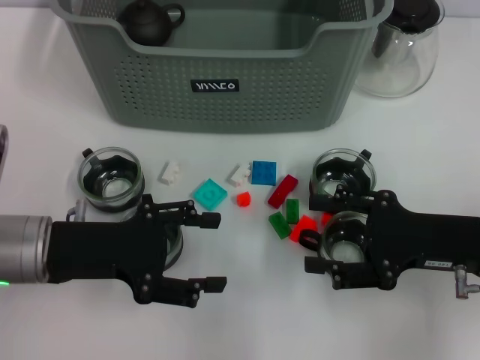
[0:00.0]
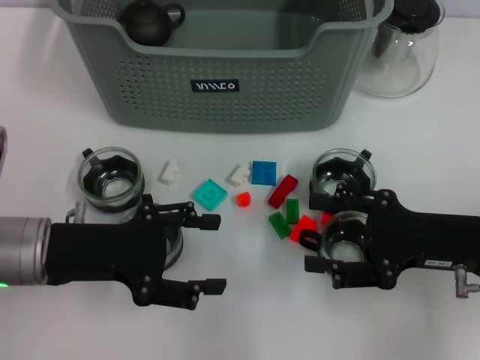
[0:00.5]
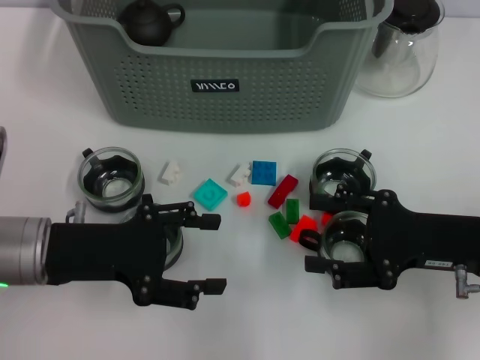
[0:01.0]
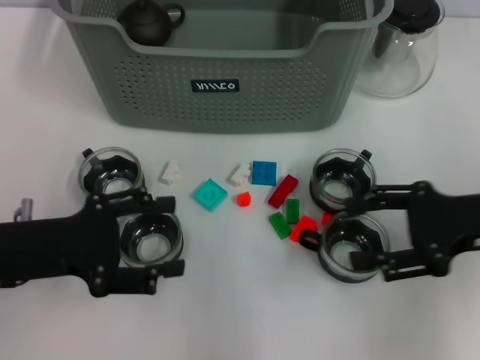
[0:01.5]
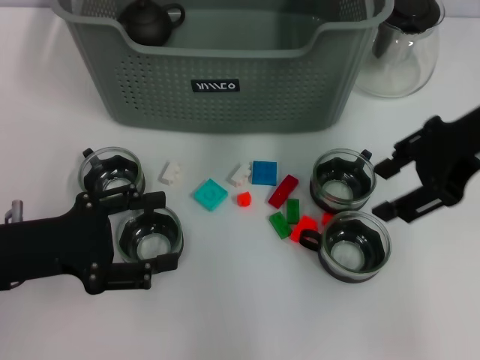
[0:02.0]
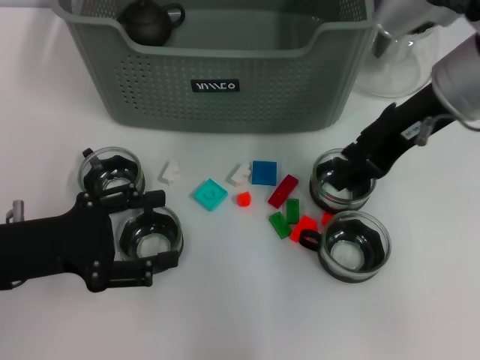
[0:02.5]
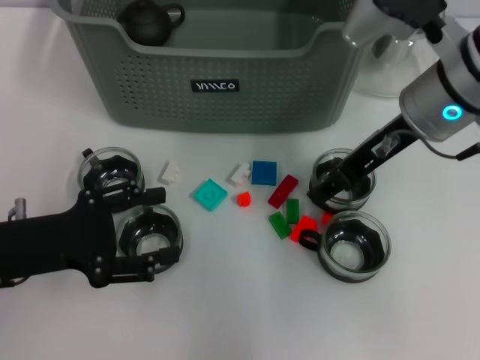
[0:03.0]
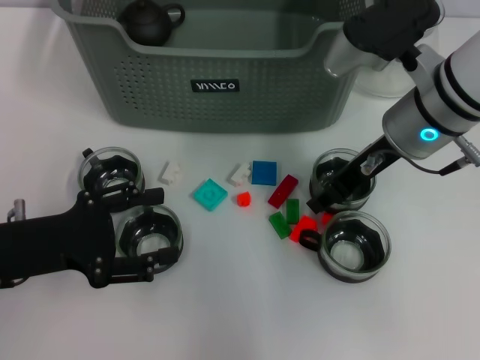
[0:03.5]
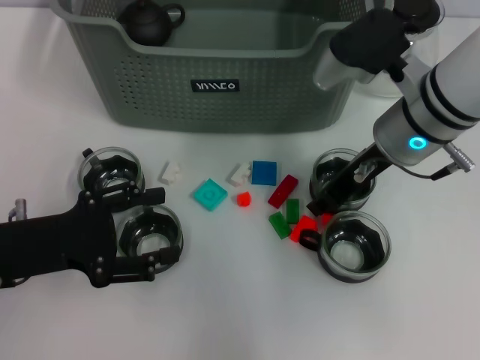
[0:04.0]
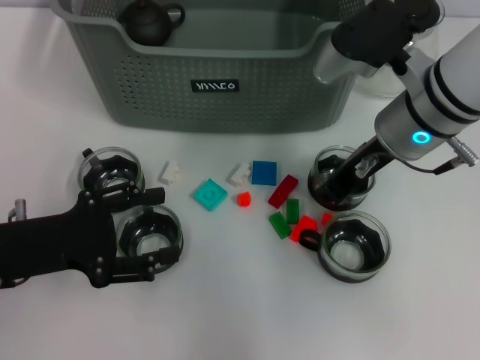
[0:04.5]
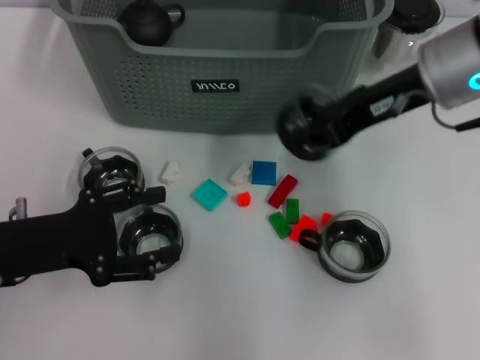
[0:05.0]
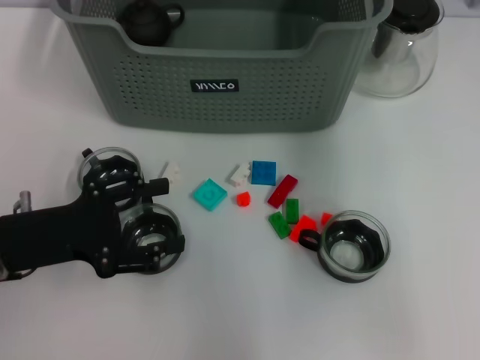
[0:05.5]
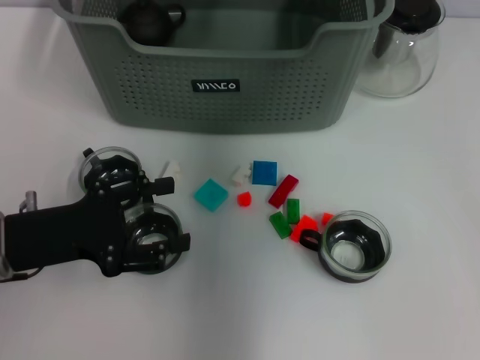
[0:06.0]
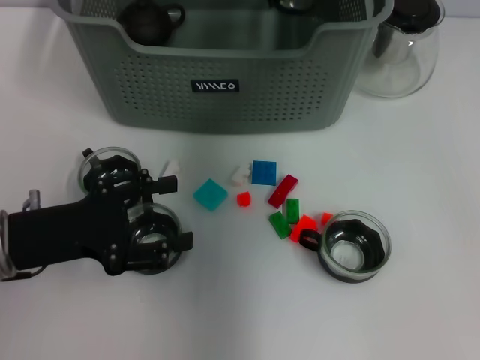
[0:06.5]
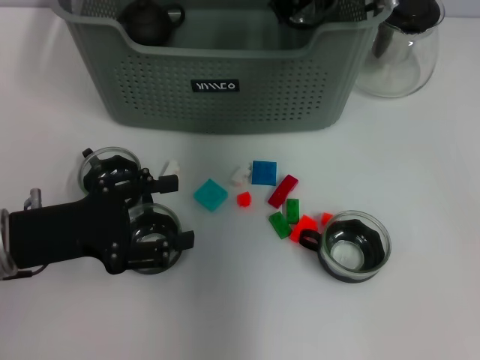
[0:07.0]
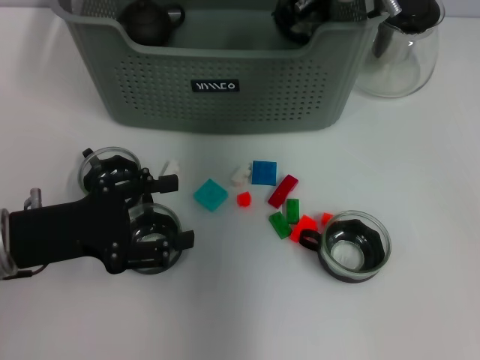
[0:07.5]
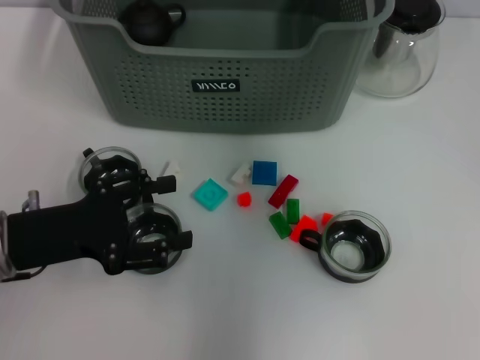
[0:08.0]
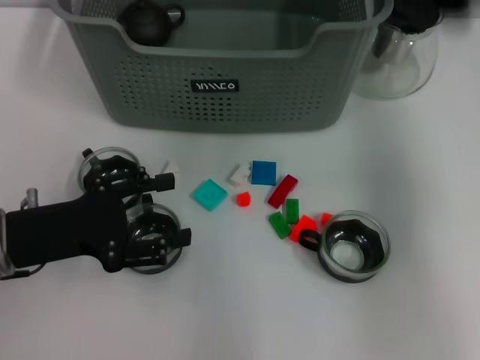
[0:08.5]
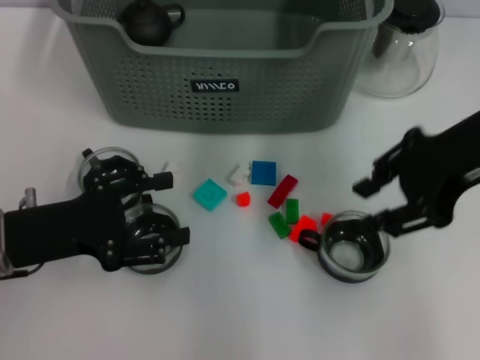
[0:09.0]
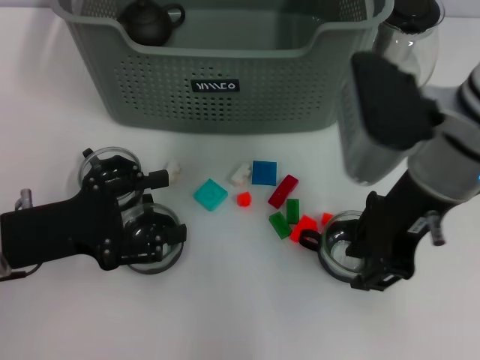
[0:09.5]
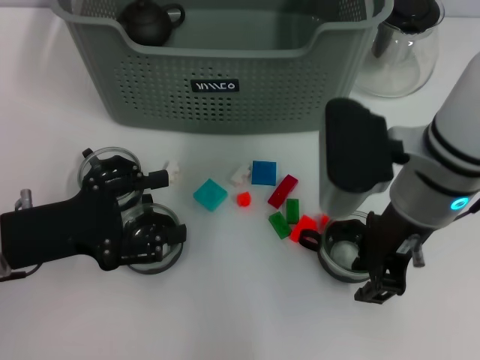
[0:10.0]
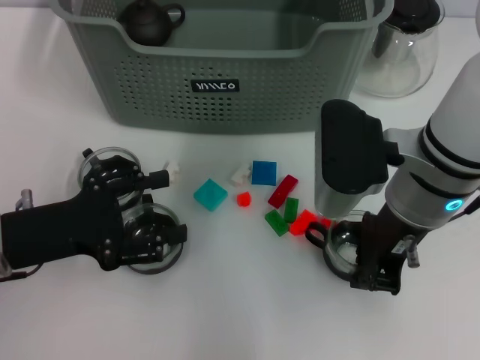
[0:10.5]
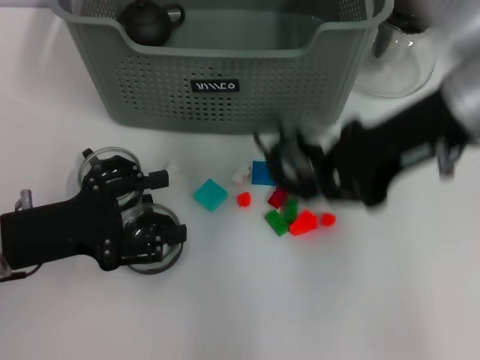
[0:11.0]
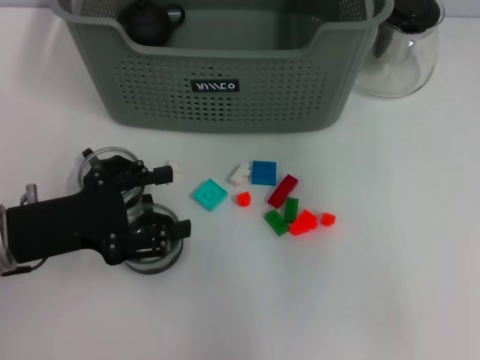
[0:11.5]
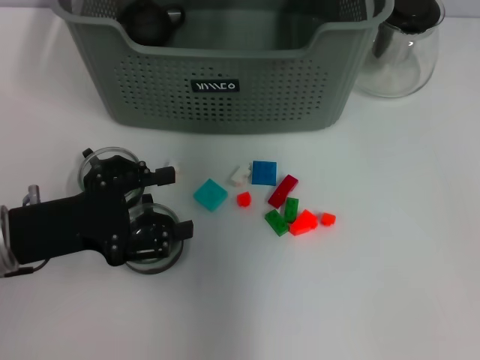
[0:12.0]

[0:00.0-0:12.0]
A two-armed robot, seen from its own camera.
Task of the whole recording: pick up the teacup on the table and place it into the storage bin, pick up the block on the table and place it into the storage bin.
Step, 0:00.0 to 0:04.0: Grasp the cup with right gripper.
Step, 0:04.5 to 0:07.5: Place the cup in the storage box with right gripper.
Step, 0:08.0 to 0:10.0: Grasp the cup with right gripper.
0:00.0 to 0:02.0: The right gripper shifts approximately 20 cm upward and forward.
0:02.0 to 0:04.0: The right gripper is displaced downward and to the left by about 10 cm, and closes.
0:04.0 to 0:06.0: The right gripper heads upward, forward and to the left, covering about 20 cm, and closes its fingers.
0:06.0 to 0:08.0: The right gripper goes downward and returns, roughly 5 cm each way, and opens up.
0:08.0 to 0:10.0: The right gripper moves backward and downward, approximately 20 cm.
0:10.0 to 0:12.0: The right gripper travels forward, upward and to the left by roughly 20 cm, and closes its fingers.

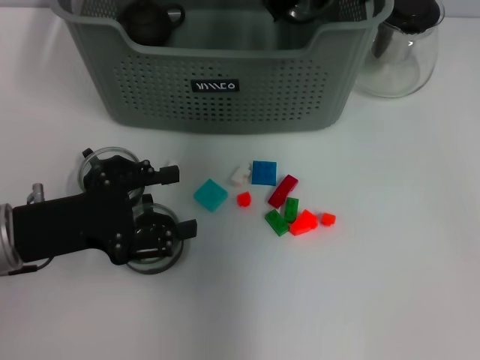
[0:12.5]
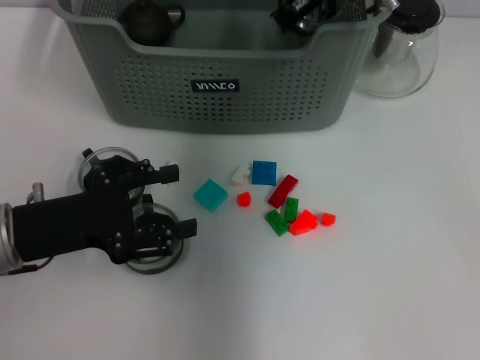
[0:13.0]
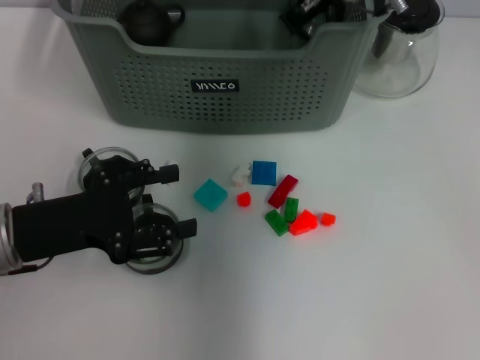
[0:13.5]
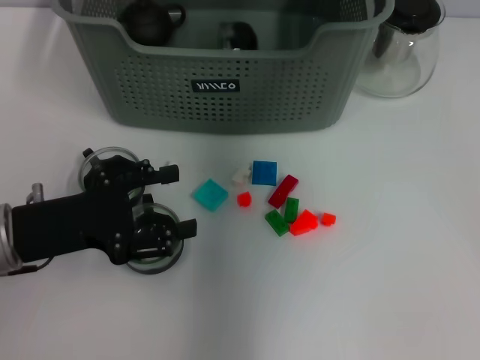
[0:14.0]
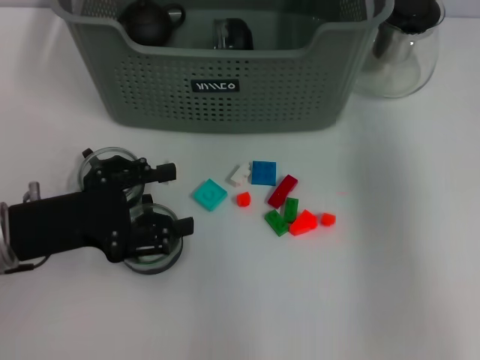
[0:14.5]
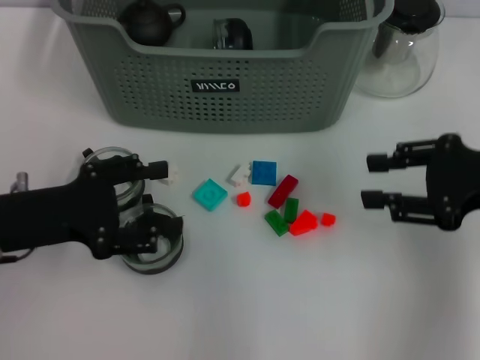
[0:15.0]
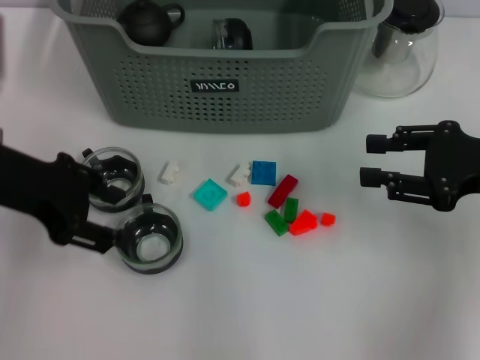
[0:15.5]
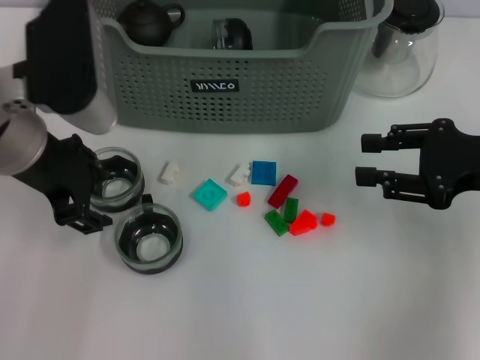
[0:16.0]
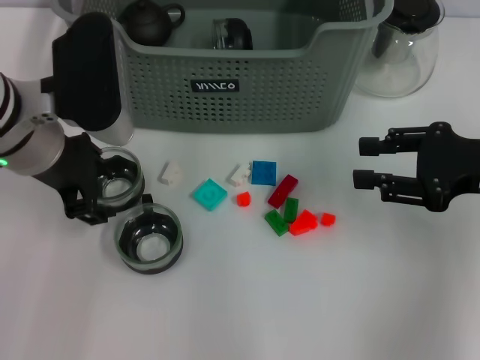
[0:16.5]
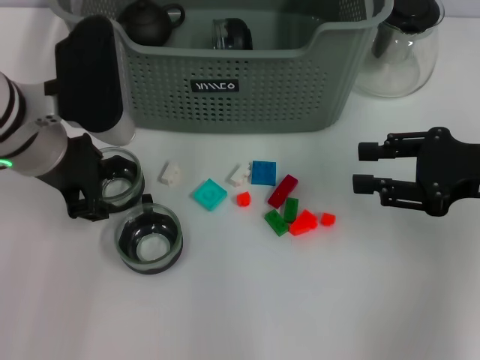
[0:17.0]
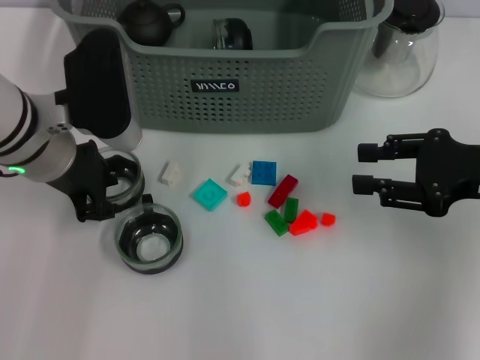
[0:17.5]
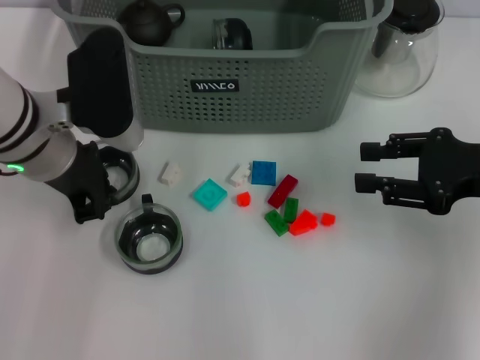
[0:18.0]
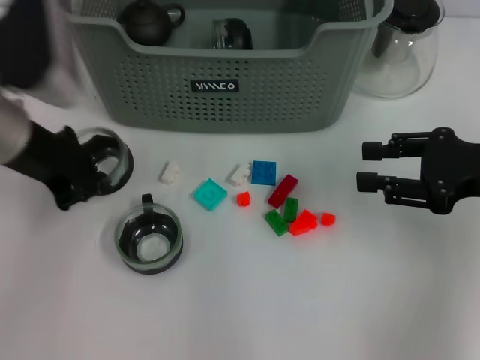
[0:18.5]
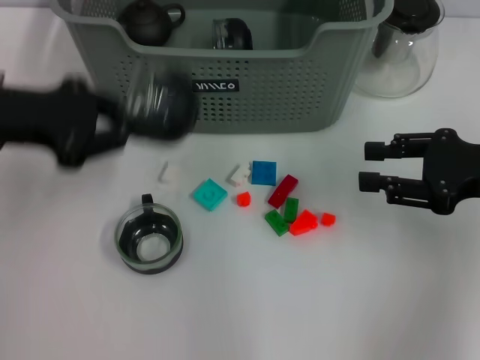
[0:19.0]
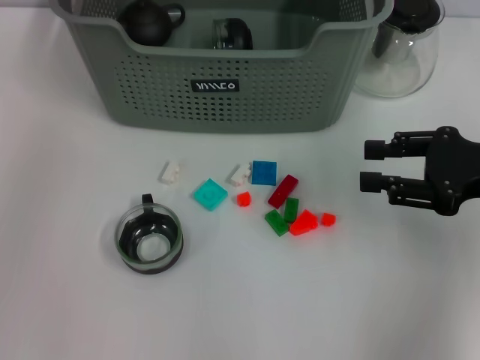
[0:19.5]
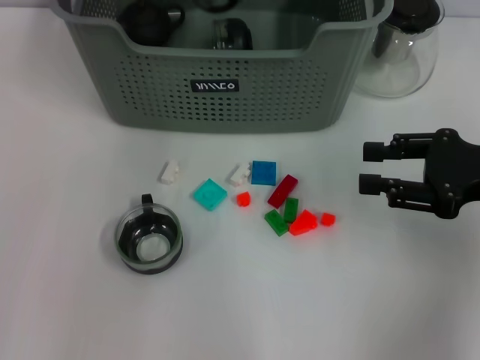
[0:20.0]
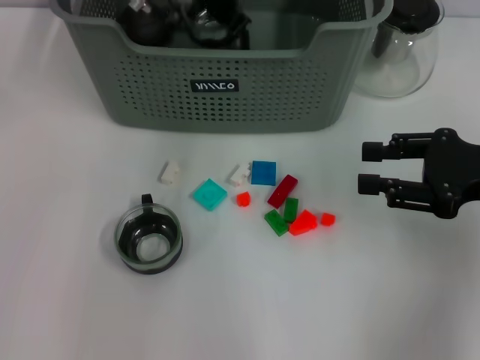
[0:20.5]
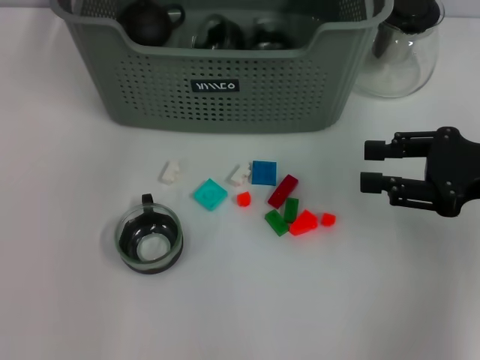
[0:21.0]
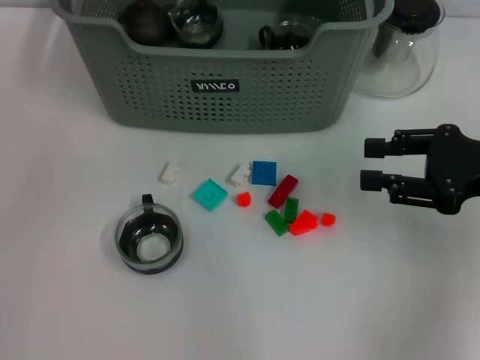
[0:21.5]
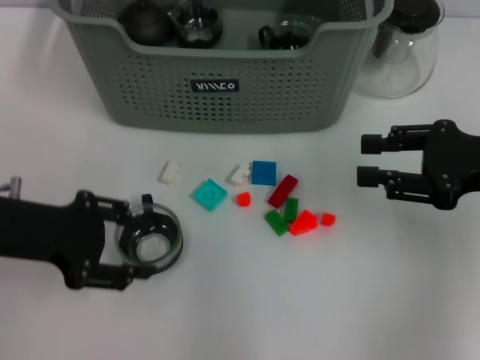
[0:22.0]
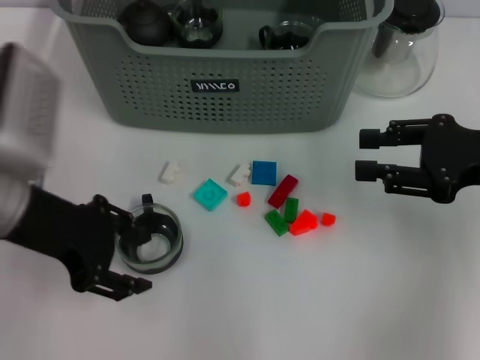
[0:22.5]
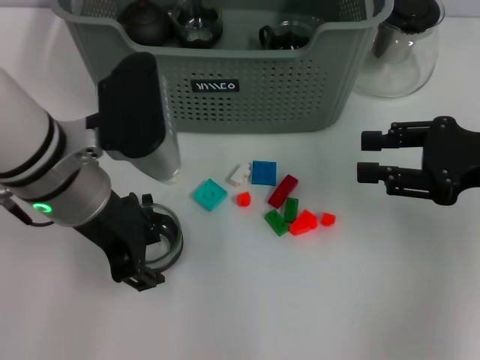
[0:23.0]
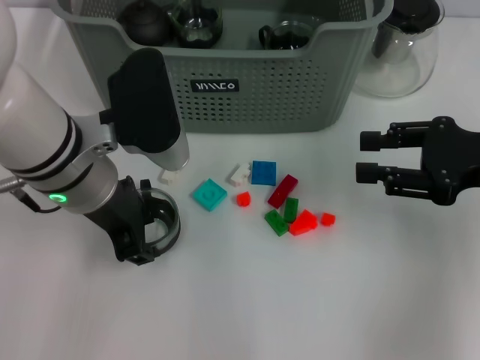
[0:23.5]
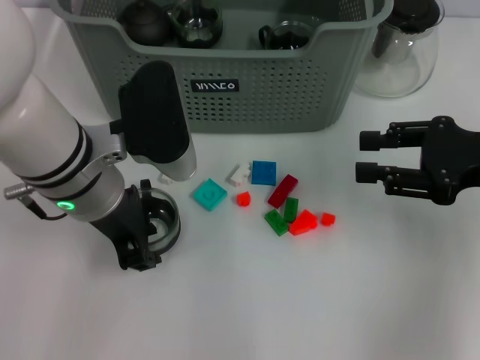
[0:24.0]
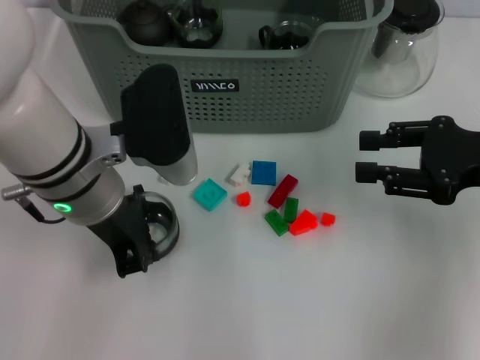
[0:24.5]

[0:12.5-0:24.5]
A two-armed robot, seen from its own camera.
Task of the whole recording: pick up the teacup on the table and place it into the storage bin, pick up the block on the table and place it into the storage bin.
Step, 0:14.0 to 0:17.5: Grasp the cup with left gripper.
Step, 0:18.5 to 0:20.5: Place the cup in the storage box with left gripper.
Step, 0:21.0 to 0:24.0: Grasp the cup with left gripper.
0:12.5 to 0:14.5: The right gripper shifts roughly 20 cm to the right and backward, and opens up.
0:14.5 to 0:16.5: The left gripper travels upward, forward and to the right by approximately 15 cm. Meanwhile the right gripper moves downward, to the right and backward, some 15 cm.
0:16.5 to 0:18.5: The left gripper closes up.
0:18.5 to 0:20.5: The left gripper is displaced to the right and forward by about 20 cm.
0:20.5 to 0:22.5: The left gripper heads backward and to the left, covering about 25 cm, and opens up.
0:22.5 to 0:24.5: The left gripper heads to the right, covering roughly 10 cm, and closes.

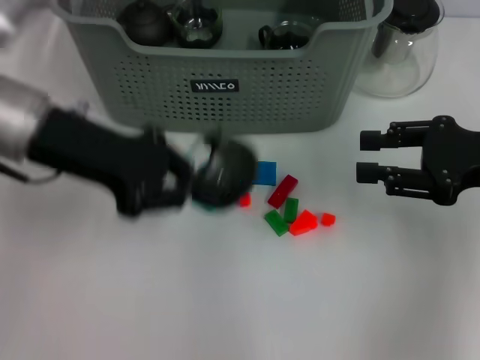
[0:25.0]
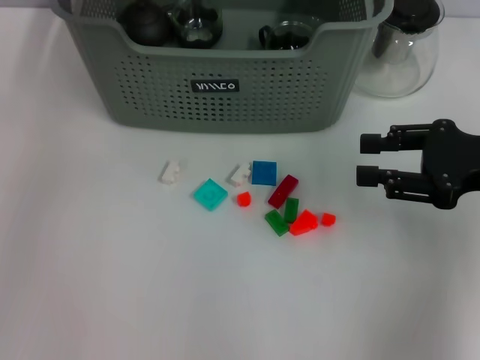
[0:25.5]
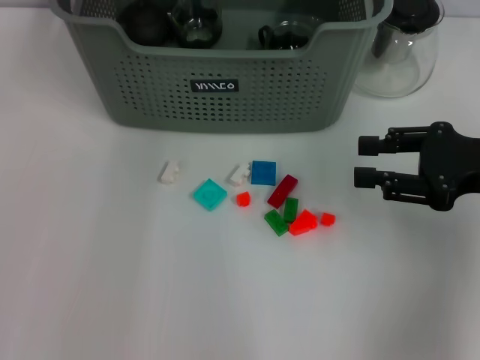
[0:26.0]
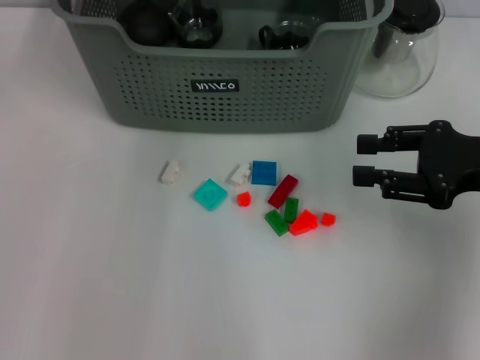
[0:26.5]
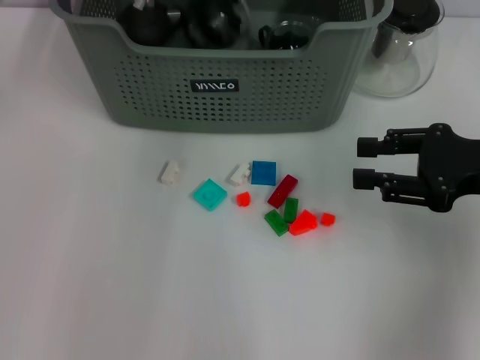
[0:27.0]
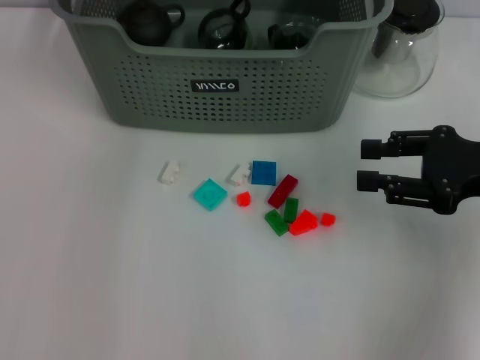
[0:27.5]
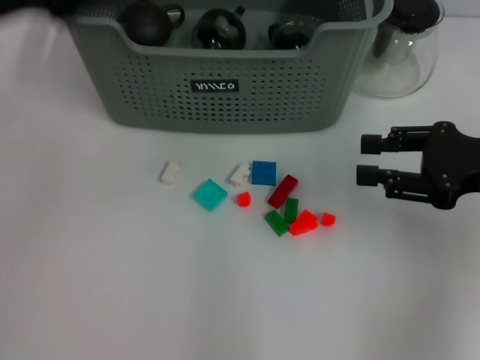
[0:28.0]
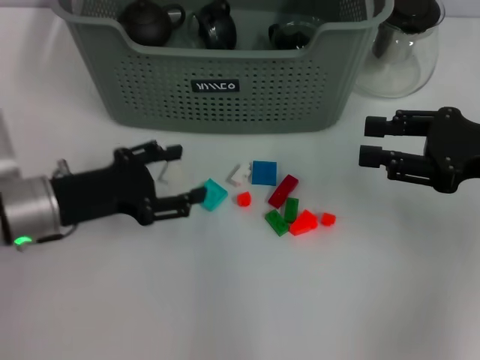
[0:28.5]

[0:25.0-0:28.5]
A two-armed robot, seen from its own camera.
Task of the whole recording: pick up the teacup on the table and place it into the storage bin, pick up the block on the table and place it into the storage bin.
Step, 0:25.0 to 0:27.0: Place the cup in the storage box with left gripper.
0:25.0 to 0:27.0: The left gripper goes roughly 20 cm forward and to the right.
0:27.0 to 0:28.5: The left gripper heads backward, to the left and downward, covering roughly 30 cm, and opens its fingers.
